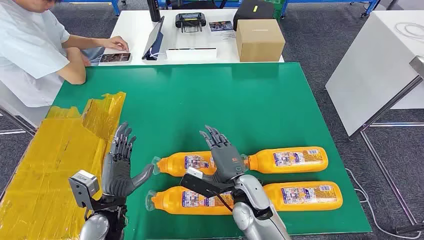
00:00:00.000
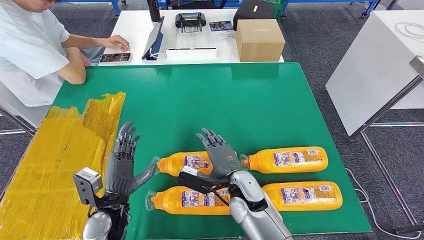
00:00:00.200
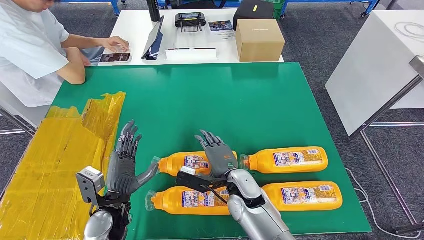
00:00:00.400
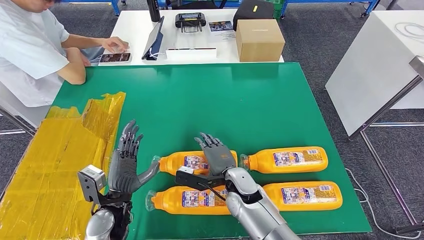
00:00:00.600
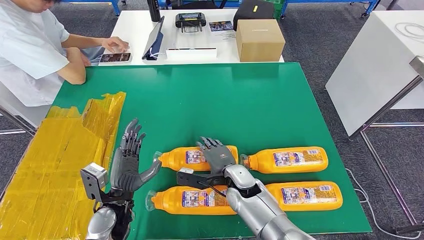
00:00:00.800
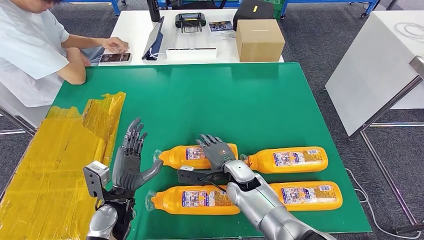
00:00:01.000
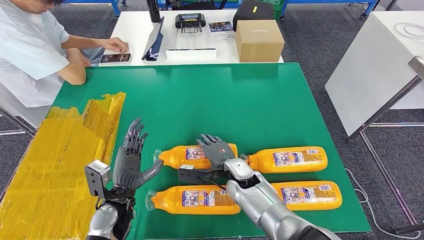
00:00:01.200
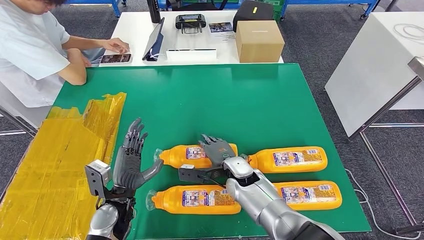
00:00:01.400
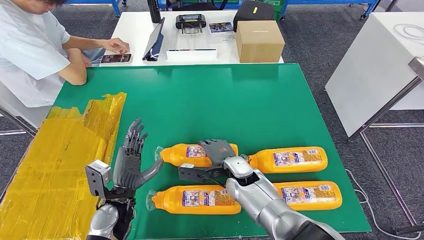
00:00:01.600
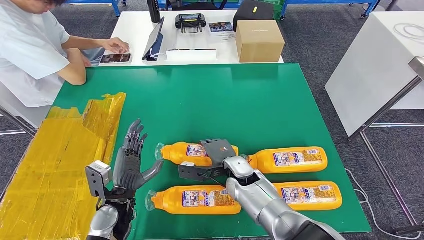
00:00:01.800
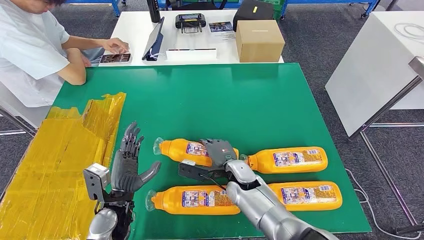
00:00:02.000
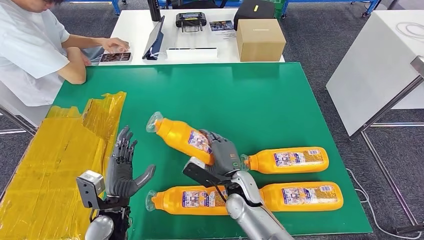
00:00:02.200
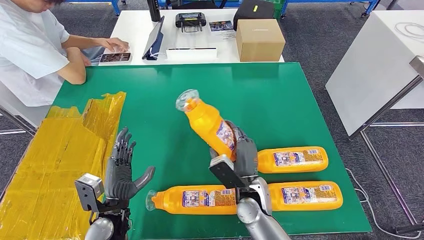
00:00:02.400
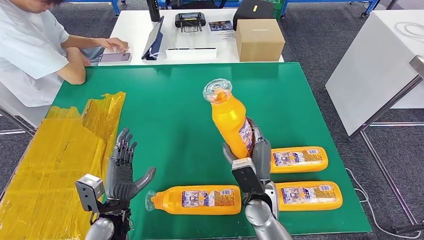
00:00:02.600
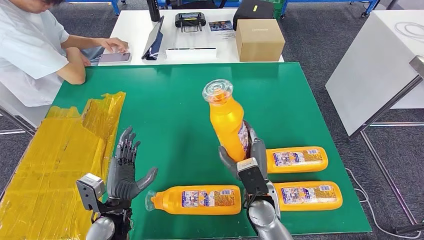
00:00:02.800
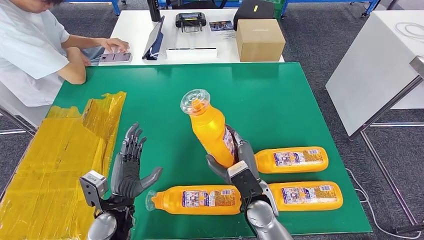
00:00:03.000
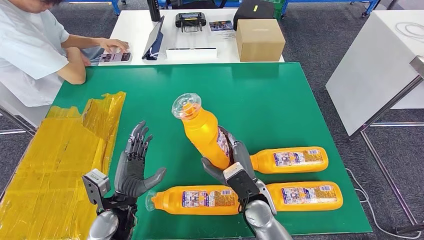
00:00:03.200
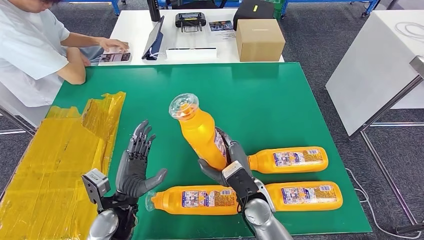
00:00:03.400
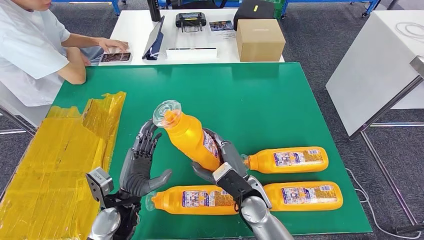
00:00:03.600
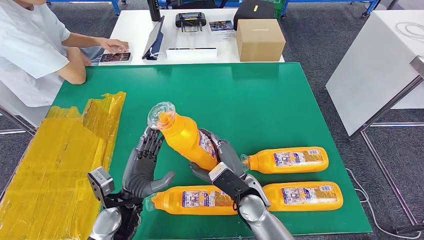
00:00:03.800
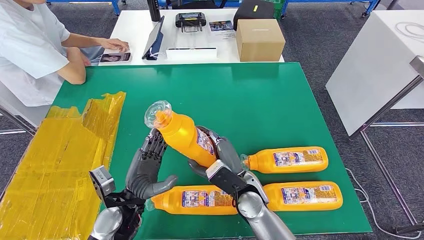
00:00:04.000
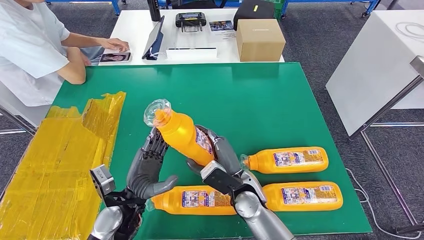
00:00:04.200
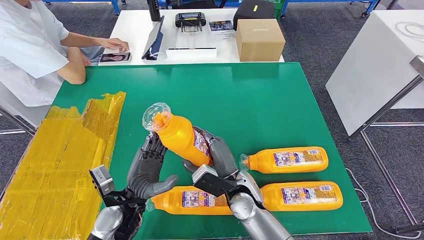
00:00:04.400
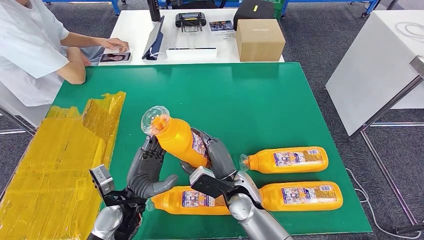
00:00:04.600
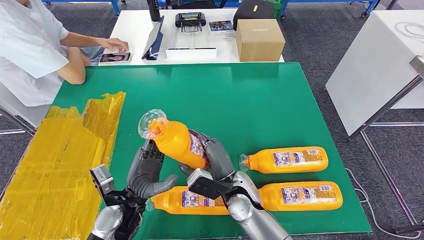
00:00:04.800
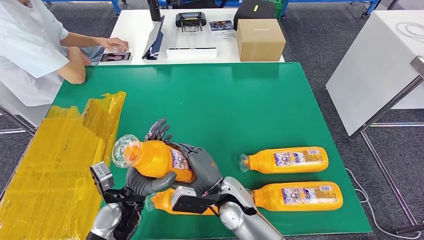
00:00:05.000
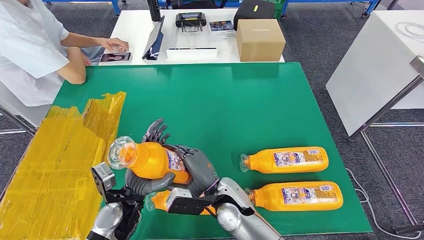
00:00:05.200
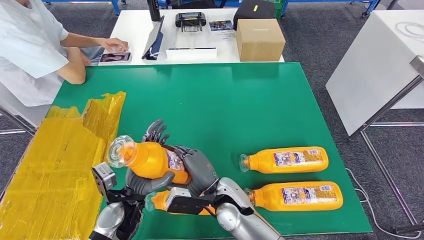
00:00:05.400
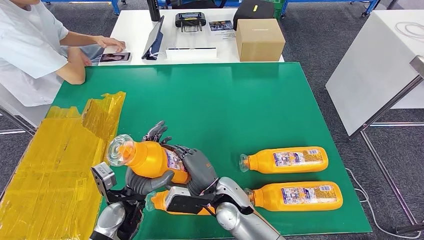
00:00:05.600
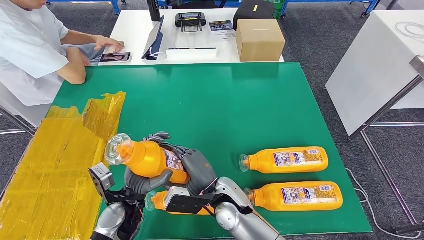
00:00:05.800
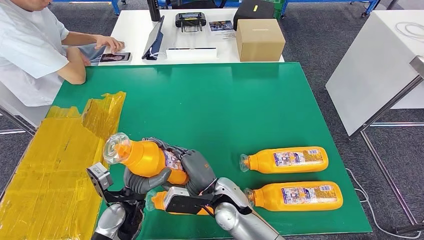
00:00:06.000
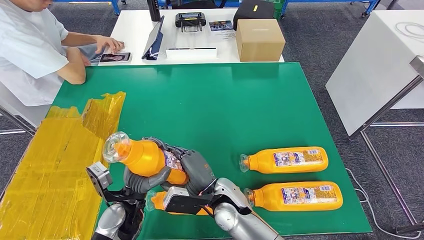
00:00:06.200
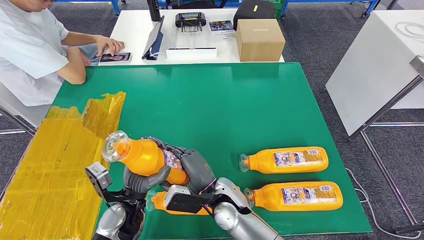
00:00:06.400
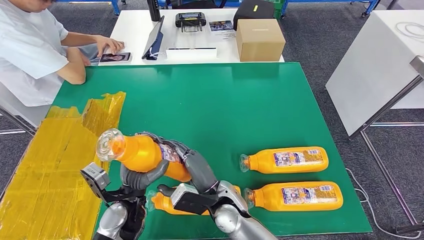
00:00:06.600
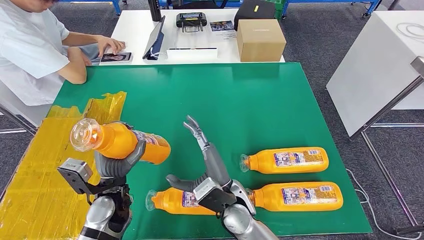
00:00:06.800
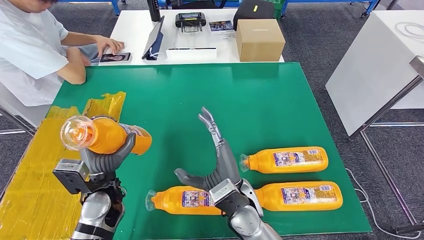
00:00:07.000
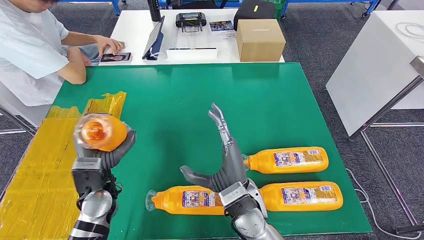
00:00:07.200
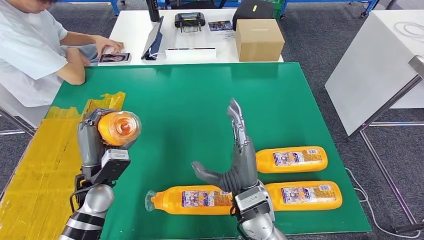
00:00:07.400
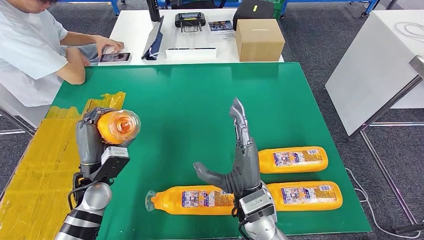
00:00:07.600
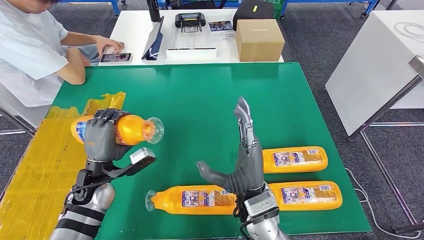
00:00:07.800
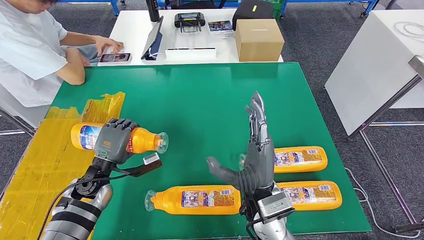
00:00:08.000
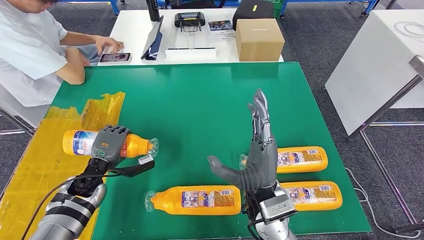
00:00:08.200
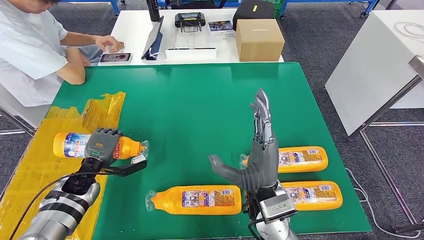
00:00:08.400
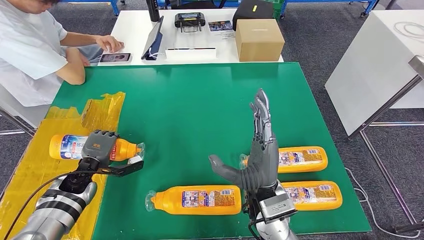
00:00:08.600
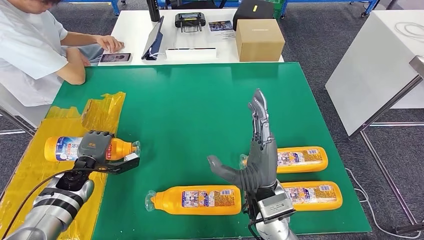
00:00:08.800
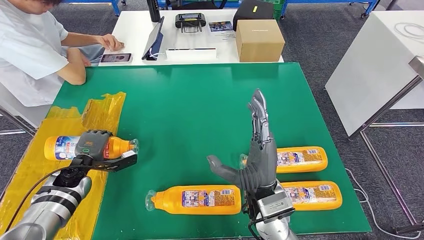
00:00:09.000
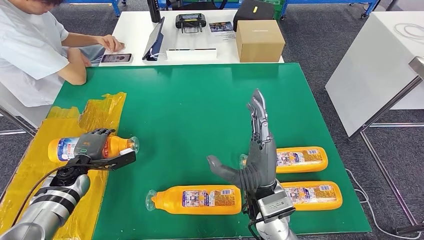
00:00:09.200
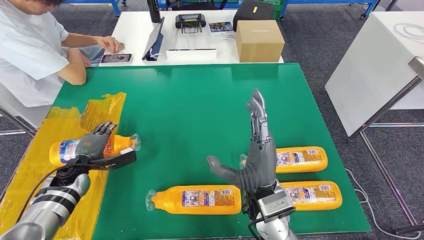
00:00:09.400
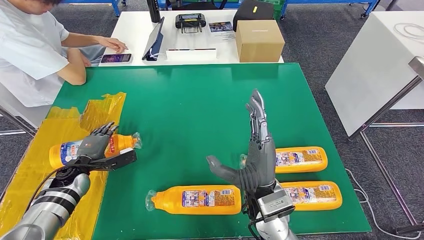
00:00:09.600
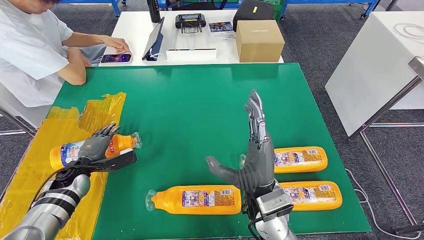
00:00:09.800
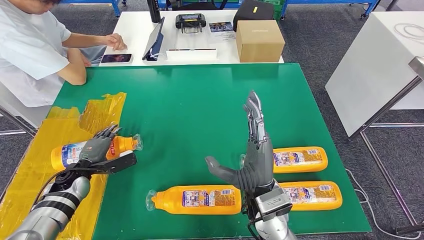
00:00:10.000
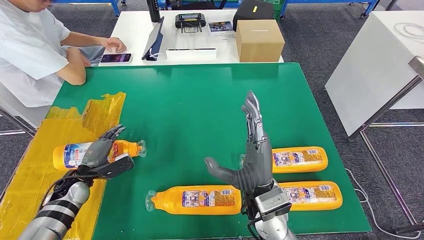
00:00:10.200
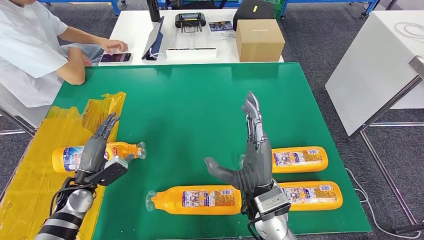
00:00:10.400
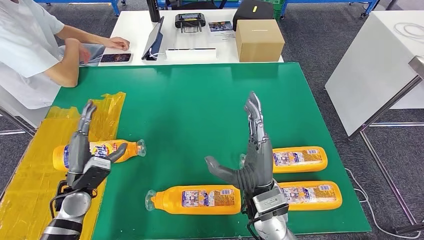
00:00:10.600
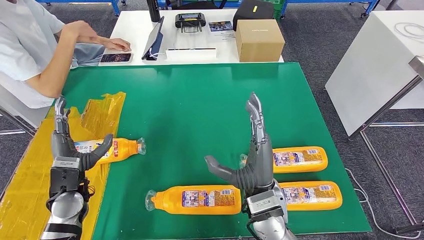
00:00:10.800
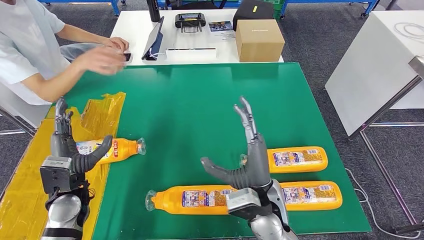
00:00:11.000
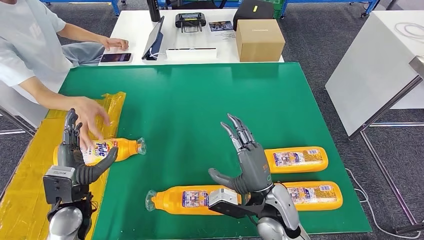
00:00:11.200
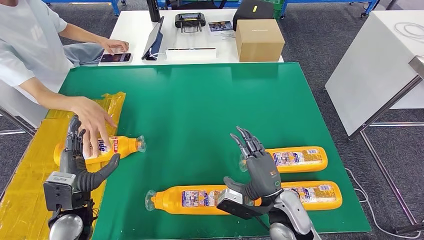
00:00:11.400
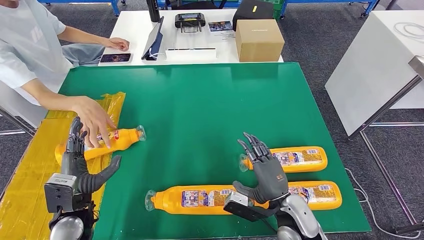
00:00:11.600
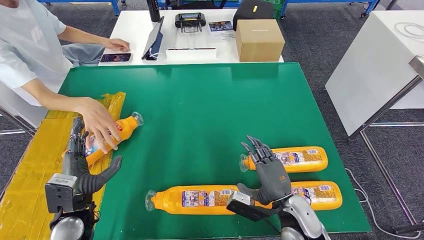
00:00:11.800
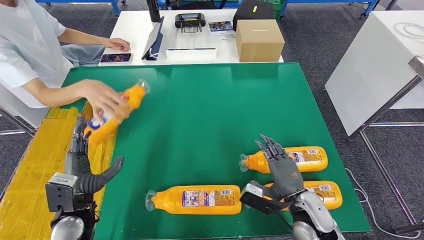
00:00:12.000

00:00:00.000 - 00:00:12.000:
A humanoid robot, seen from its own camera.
Step, 00:00:00.000 - 00:00:03.800: Take the fast-moving consumer goods bottle from the table.
Step, 00:00:04.000 - 00:00:10.800: Flip the fast-moving consumer goods bottle to the front side.
00:00:01.600 - 00:00:03.000: The right hand is displaced backward by some 10 cm.
00:00:04.400 - 00:00:06.000: The hands stay close to where they were, moving slightly.
00:00:06.000 - 00:00:07.600: The left hand moves to the left, roughly 10 cm; the right hand moves upward and to the right, some 10 cm.
00:00:07.600 - 00:00:09.000: The left hand shifts about 15 cm to the left, downward and forward.
00:00:09.000 - 00:00:10.400: The left hand travels backward by approximately 5 cm.

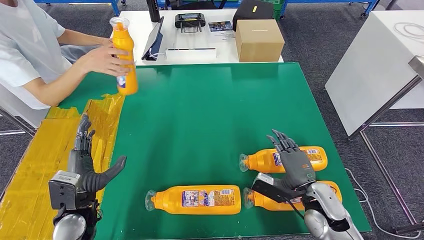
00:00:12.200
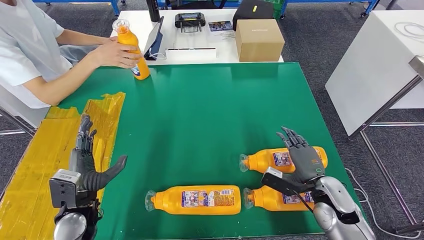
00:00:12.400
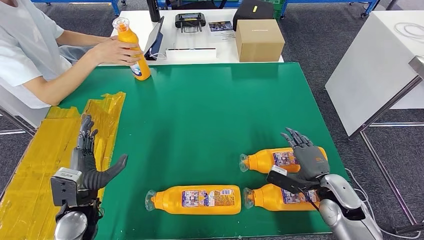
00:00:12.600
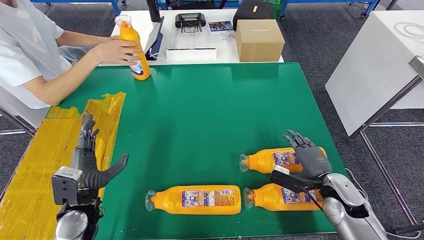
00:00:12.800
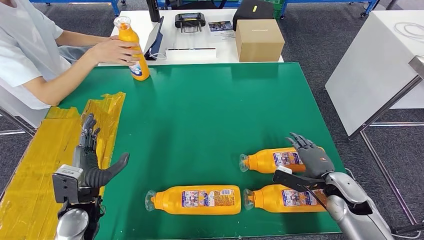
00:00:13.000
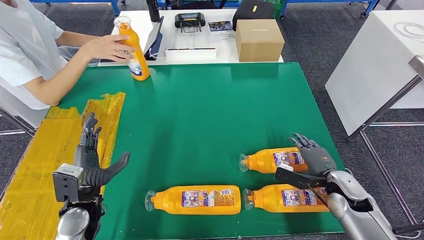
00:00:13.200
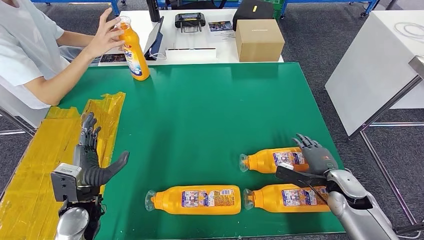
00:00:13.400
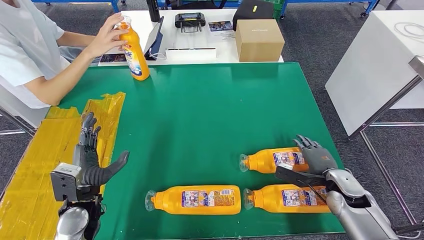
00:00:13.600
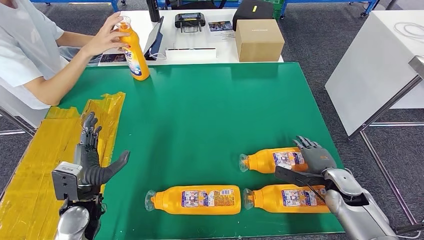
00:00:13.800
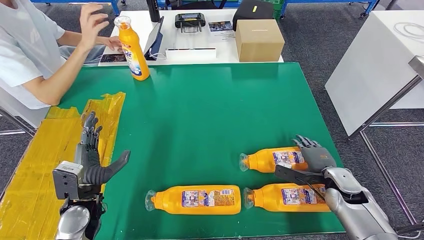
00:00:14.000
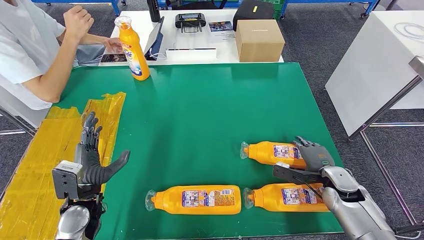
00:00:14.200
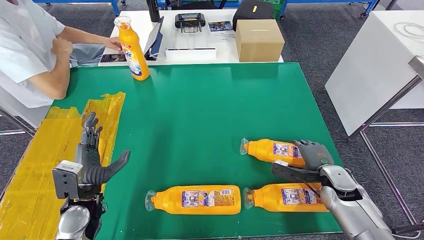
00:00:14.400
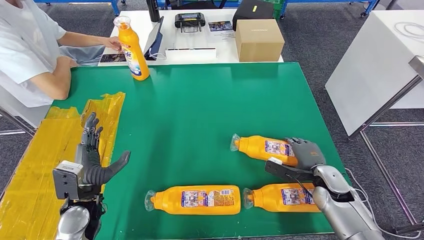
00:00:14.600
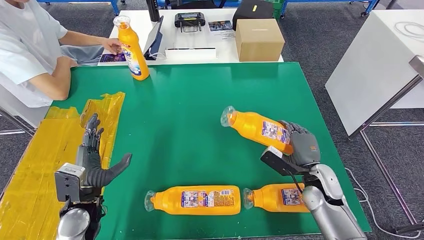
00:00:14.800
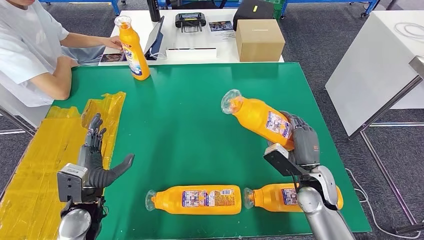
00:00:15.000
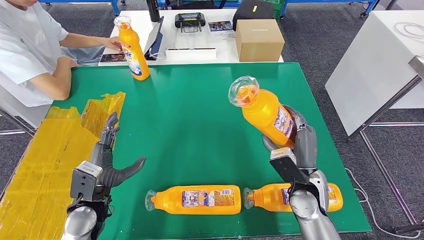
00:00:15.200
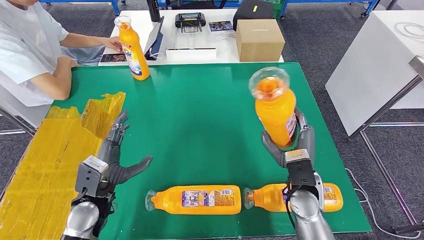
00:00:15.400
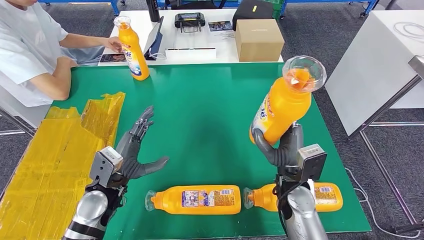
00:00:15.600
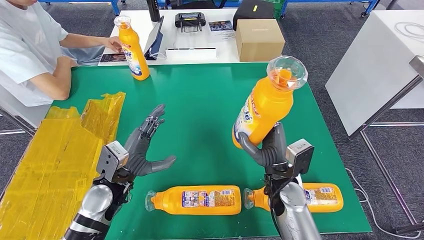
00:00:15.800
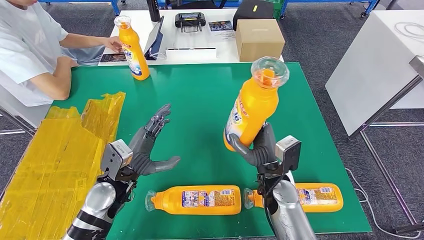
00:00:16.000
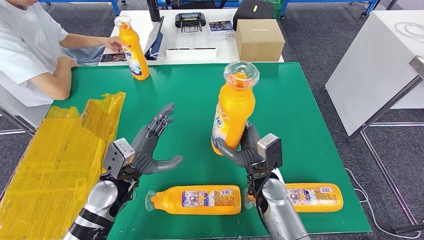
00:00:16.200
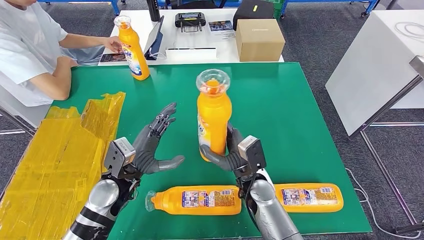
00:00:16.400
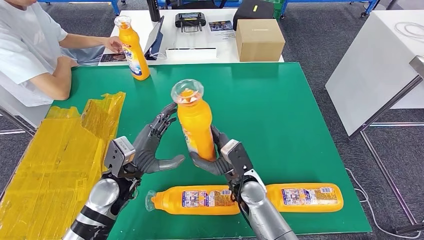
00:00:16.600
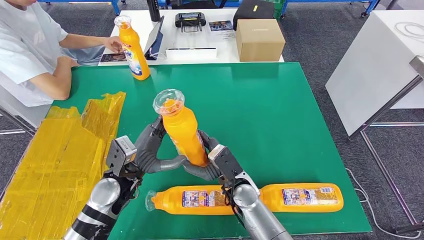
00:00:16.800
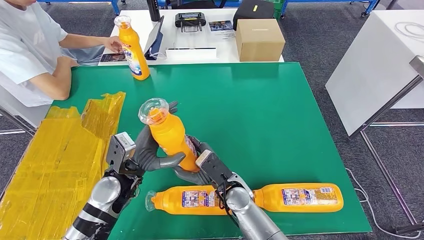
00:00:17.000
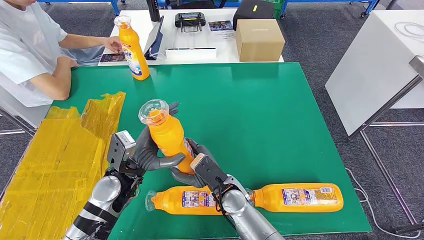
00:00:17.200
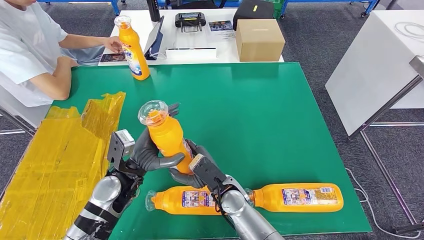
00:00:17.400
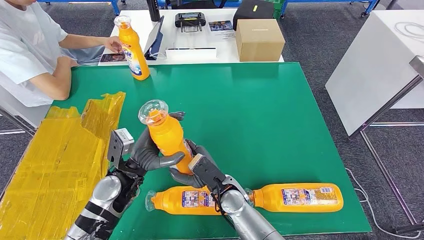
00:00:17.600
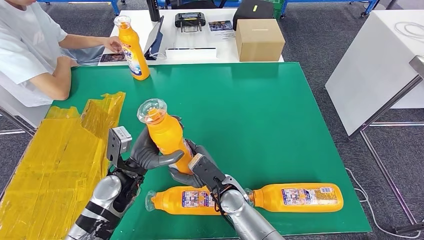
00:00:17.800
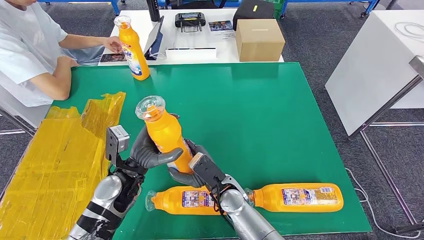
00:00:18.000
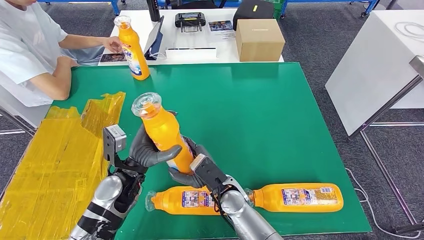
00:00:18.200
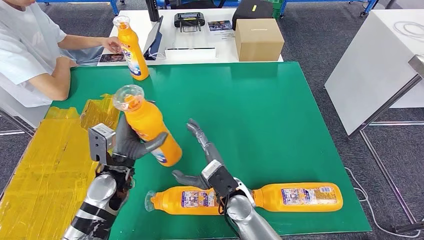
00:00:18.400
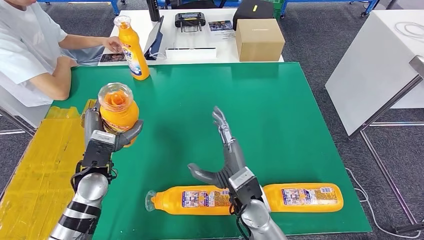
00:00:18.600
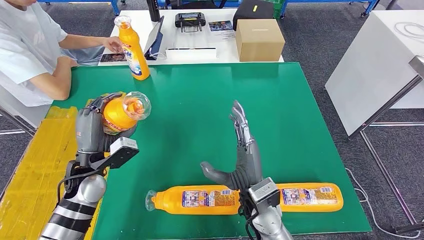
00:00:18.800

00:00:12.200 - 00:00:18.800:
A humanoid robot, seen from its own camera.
Step, 00:00:12.200 - 00:00:15.800: Pick up the fast-moving consumer goods bottle from the table.
00:00:12.200 - 00:00:13.800: The right hand shifts roughly 10 cm to the right and forward.
00:00:15.400 - 00:00:17.200: The left hand heads to the right, covering some 5 cm, while the right hand goes roughly 15 cm to the left.
00:00:17.200 - 00:00:18.800: The left hand heads to the left, covering roughly 10 cm, while the right hand is displaced upward and to the right by about 10 cm.
